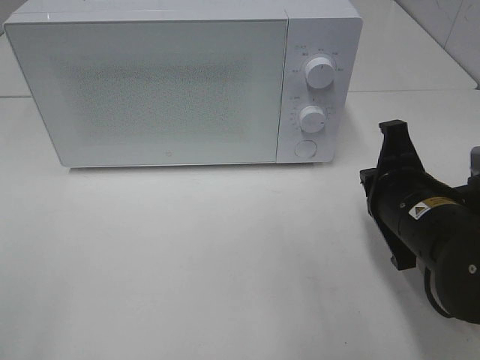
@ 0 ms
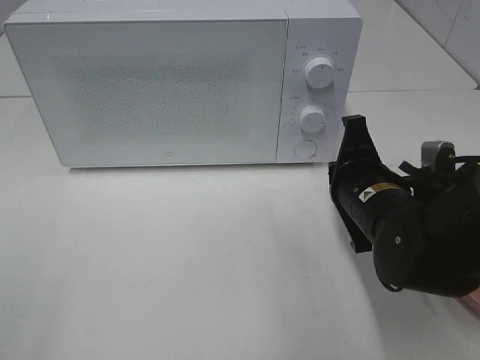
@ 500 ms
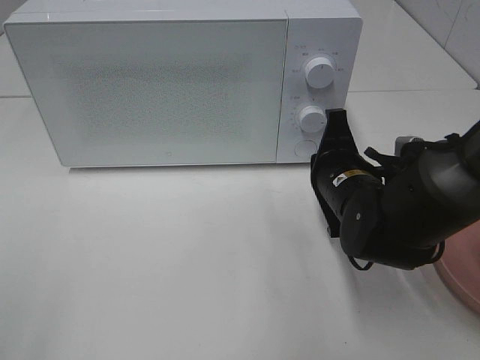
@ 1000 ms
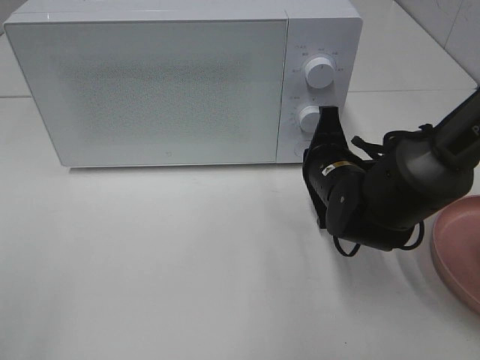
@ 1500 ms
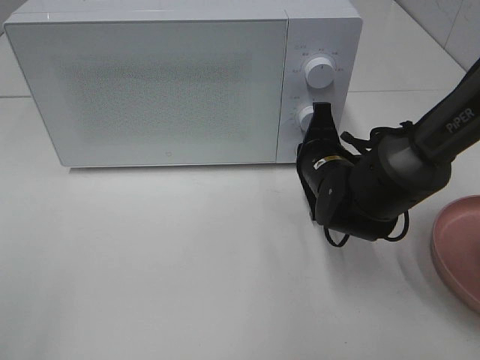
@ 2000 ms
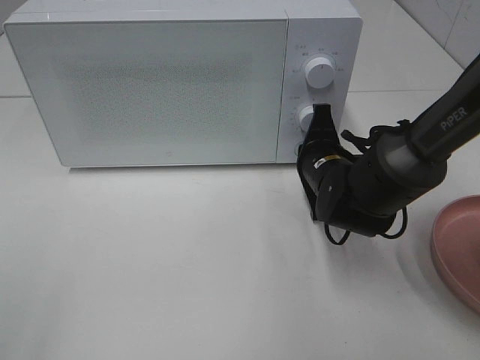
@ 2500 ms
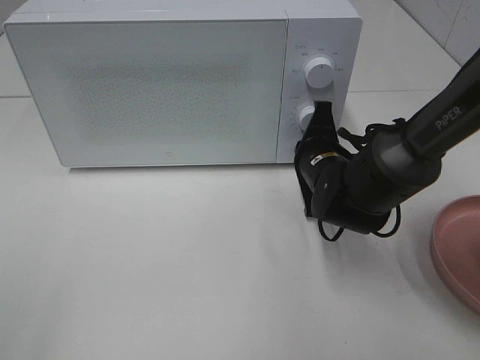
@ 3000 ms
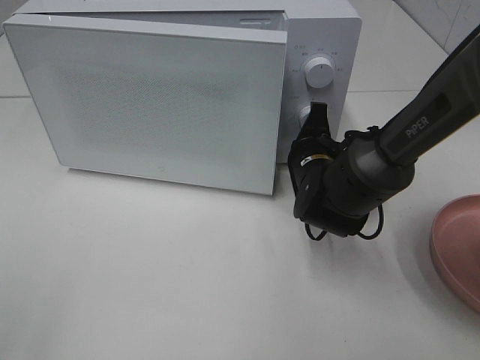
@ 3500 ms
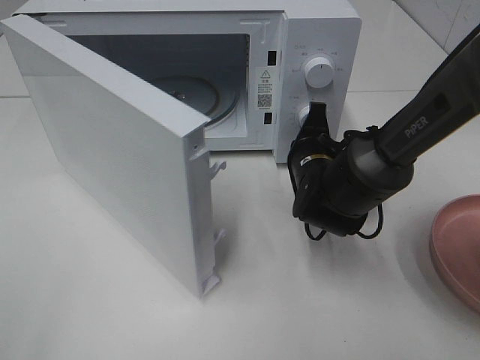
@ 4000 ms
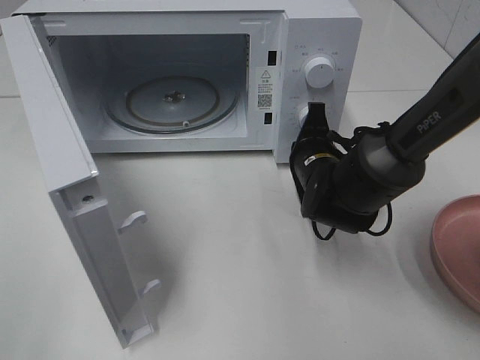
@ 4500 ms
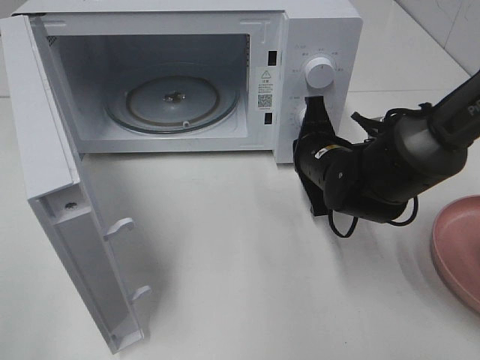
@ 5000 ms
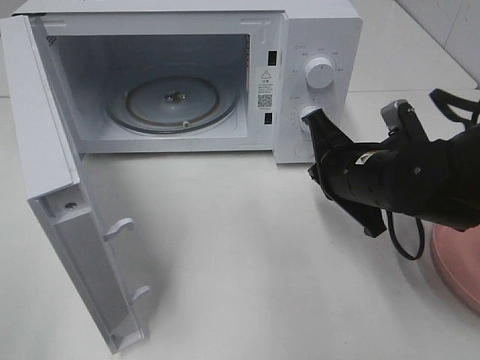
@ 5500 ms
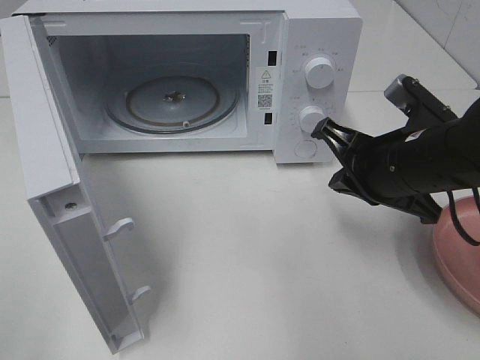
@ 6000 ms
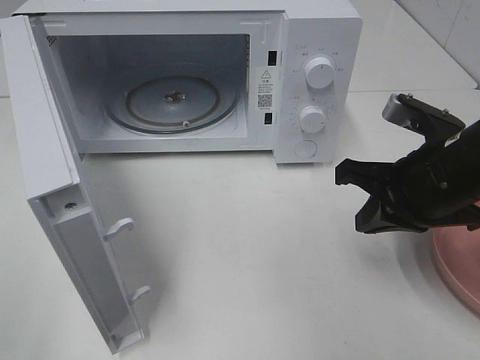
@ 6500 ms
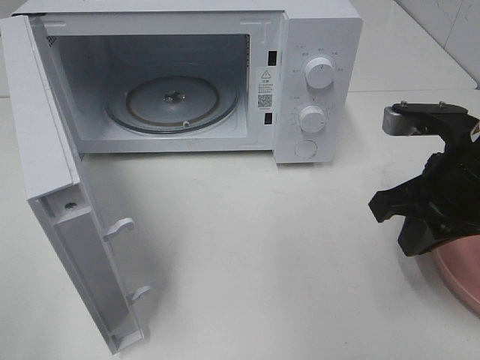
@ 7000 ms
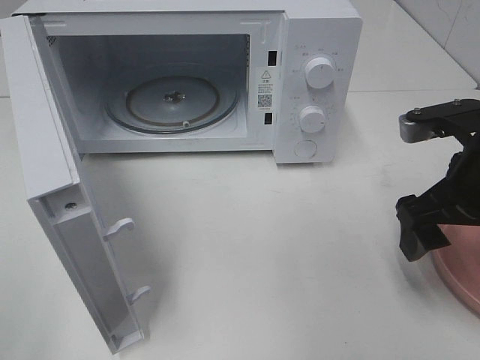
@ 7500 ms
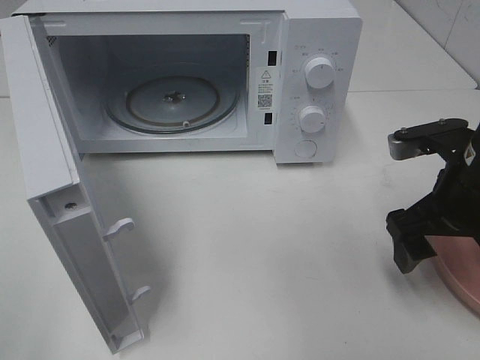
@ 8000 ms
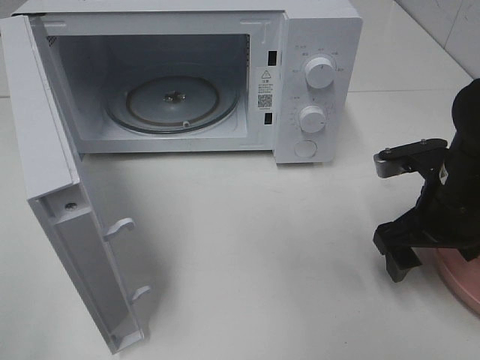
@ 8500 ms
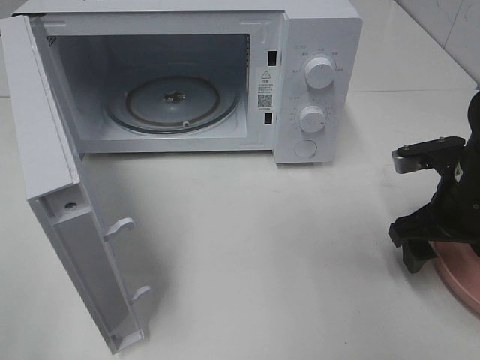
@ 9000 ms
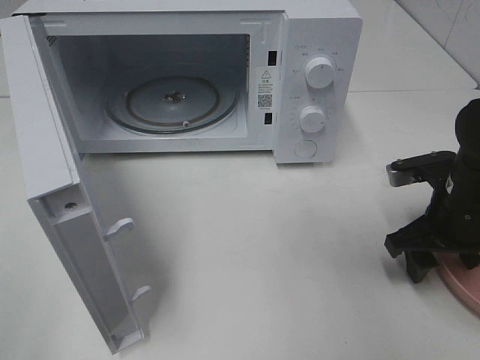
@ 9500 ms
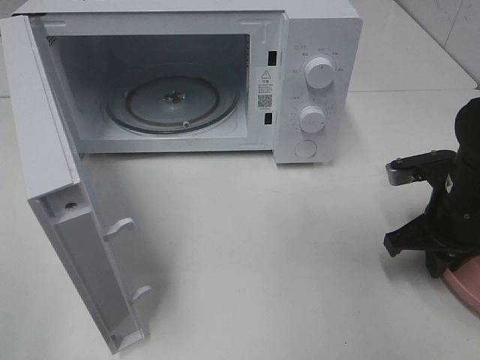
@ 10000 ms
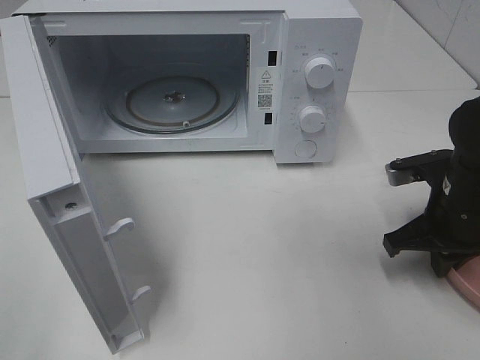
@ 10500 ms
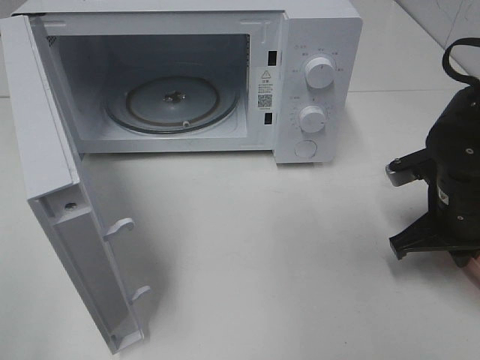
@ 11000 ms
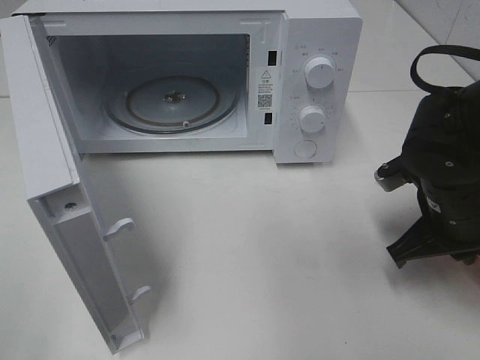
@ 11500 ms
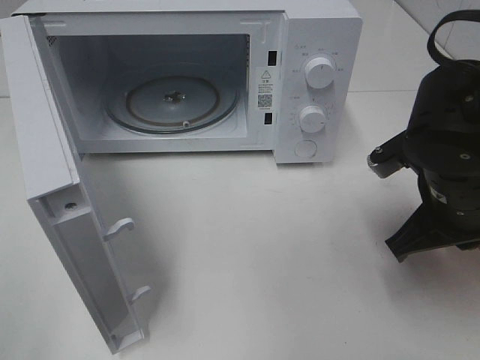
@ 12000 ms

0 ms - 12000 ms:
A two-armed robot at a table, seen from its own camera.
Task of the whole recording: Heat the burger.
Step, 0 ms - 5000 ms: Right hand: press the switch.
Step, 5500 ms - 10000 ms: Right hand: grab the plate with the hamburger.
0 ms - 2000 ms: The right gripper goes about 15 cm forward, to the left and downward.
4000 ms - 6000 ms: The right gripper is displaced upward, backward and to the right by roughly 15 cm.
6000 ms - 8000 ms: The right gripper opens.
8000 ms - 10000 ms: The right gripper is displaced downward by roughly 5 cm, and closes up.
10000 ms - 12000 ms: The right gripper moves to the left and upward, roughly 10 cm.

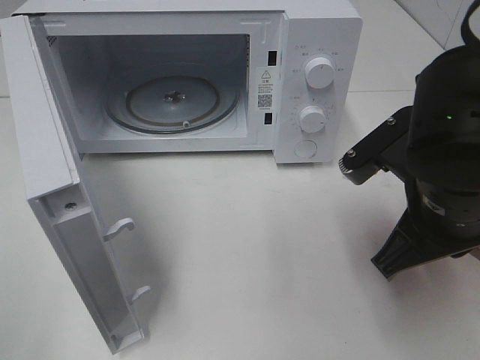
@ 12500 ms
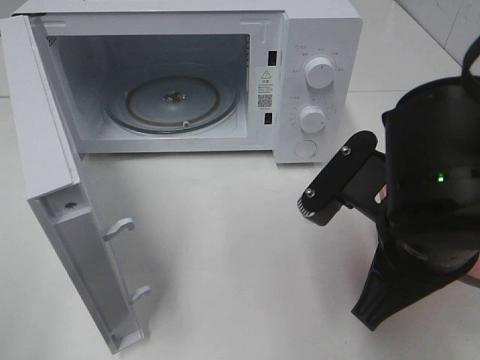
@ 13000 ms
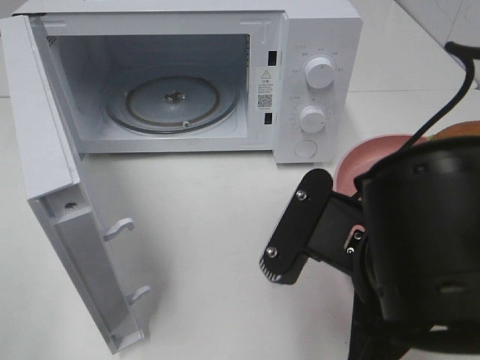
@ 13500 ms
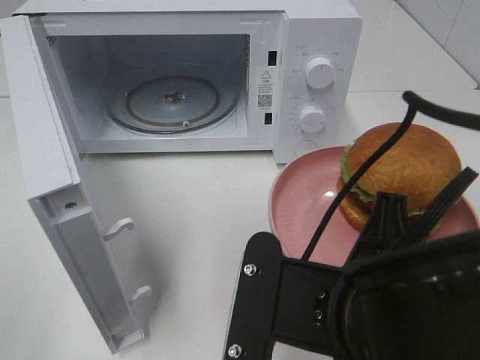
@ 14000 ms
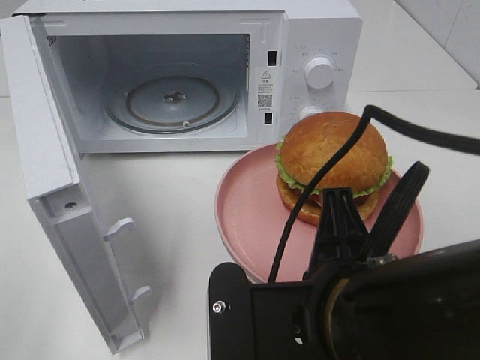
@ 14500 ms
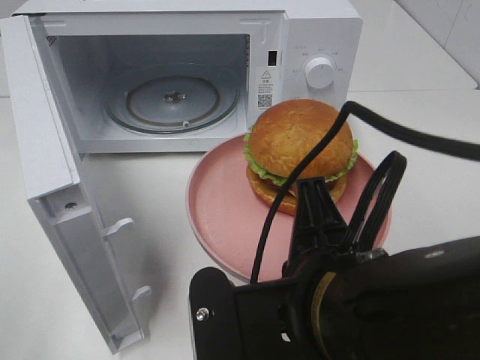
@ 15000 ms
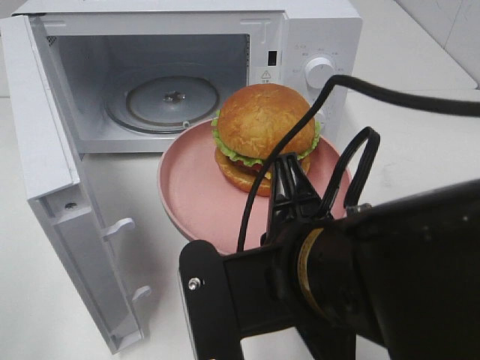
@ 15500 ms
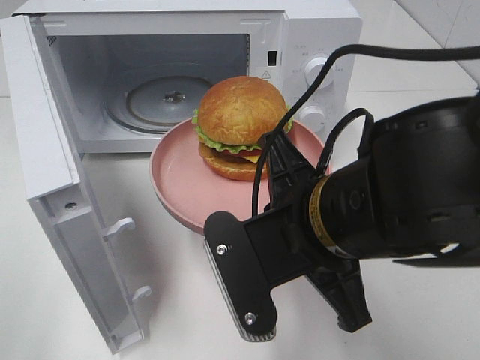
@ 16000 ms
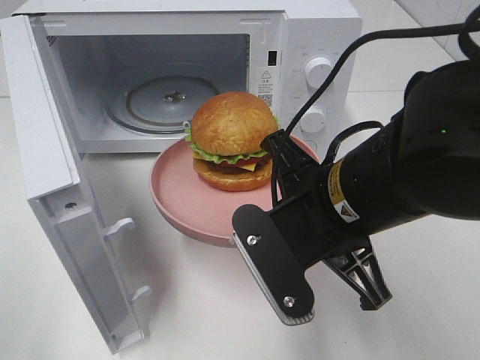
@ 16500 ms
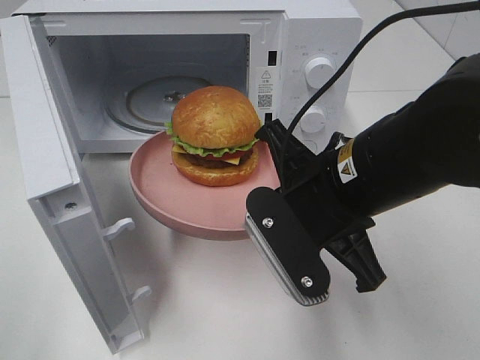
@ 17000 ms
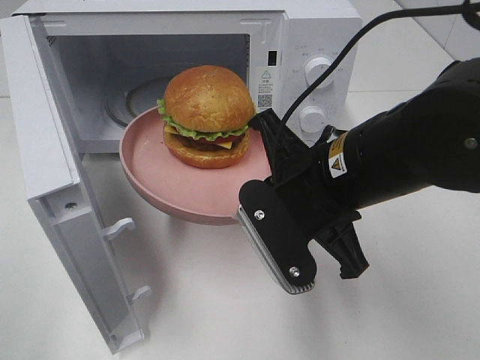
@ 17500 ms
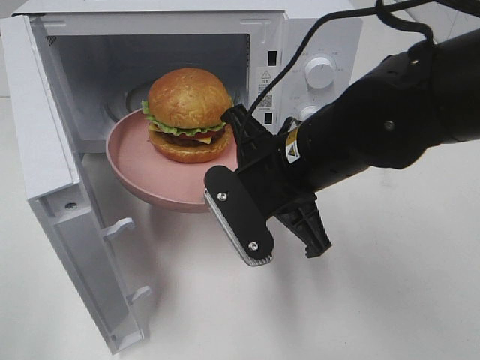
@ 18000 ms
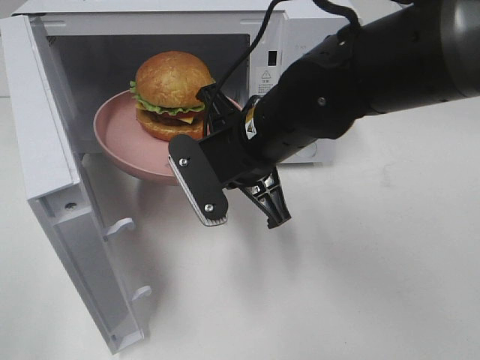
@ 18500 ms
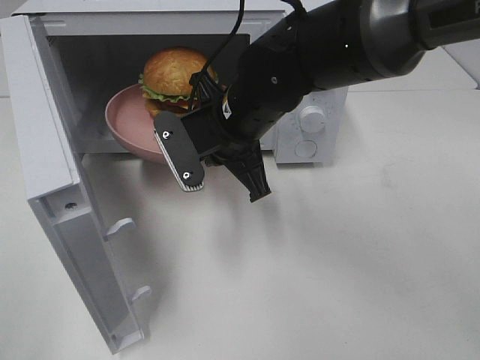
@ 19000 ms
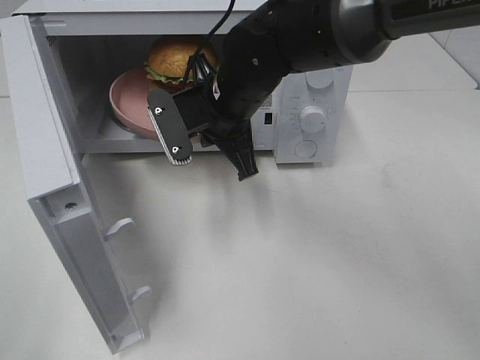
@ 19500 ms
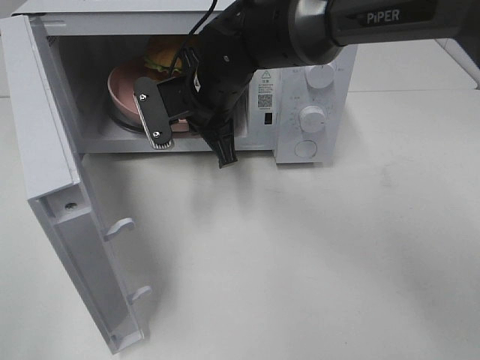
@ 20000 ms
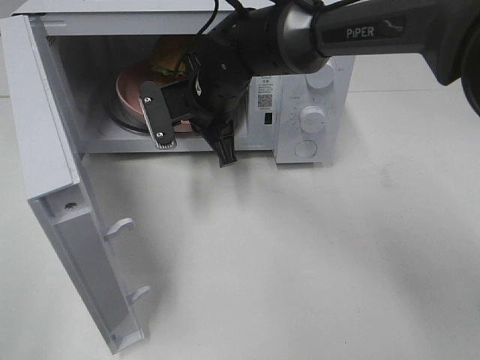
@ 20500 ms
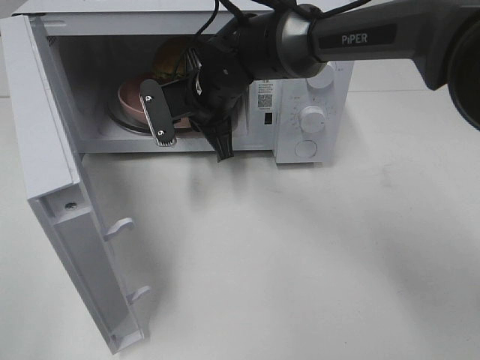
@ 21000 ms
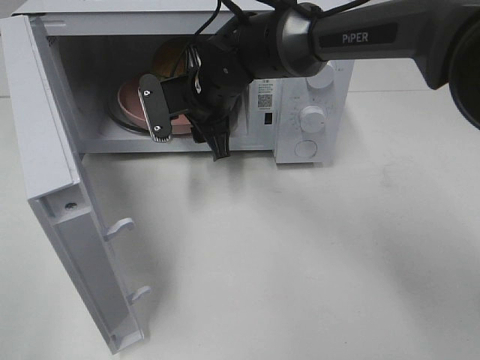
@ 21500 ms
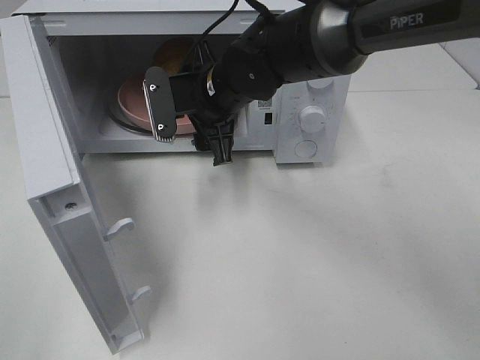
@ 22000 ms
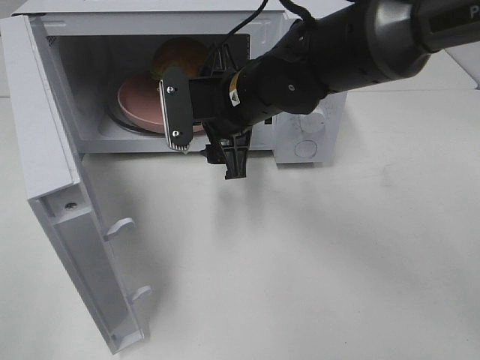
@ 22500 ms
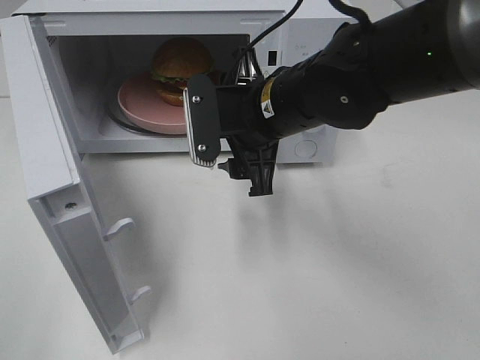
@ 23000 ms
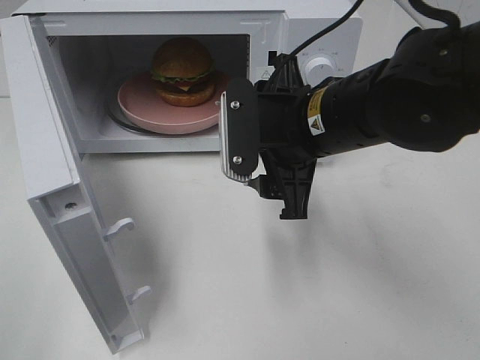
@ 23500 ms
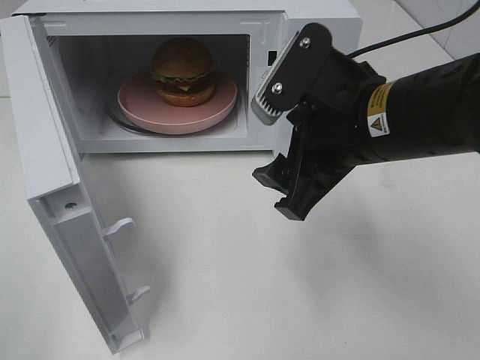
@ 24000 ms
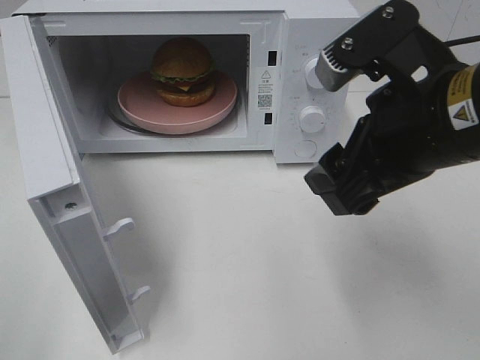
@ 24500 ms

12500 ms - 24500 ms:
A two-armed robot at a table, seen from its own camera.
Task of the whole recording: Heat the burger.
Step, 12500 ms - 21000 ms: Right hand: place the plate in the microwave.
12500 ms - 14500 ms: The right gripper goes approximately 15 cm backward and to the left.
14500 ms - 16500 ms: The right gripper shifts about 10 cm forward.
16500 ms - 18500 ms: The right gripper goes approximately 10 cm forward and to the left.
18500 ms - 20500 ms: The right gripper travels forward by approximately 10 cm.
20500 ms - 22500 ms: The right gripper shifts approximately 5 cm backward, and opens up.
22500 ms - 24500 ms: The right gripper shifts some 20 cm backward, to the right and upward.

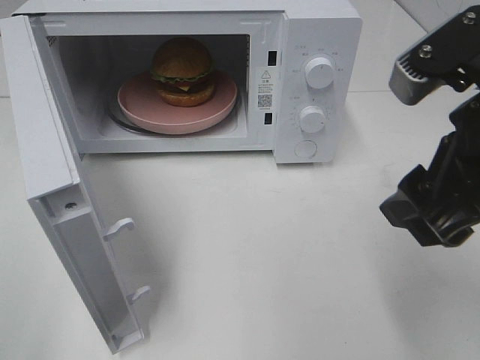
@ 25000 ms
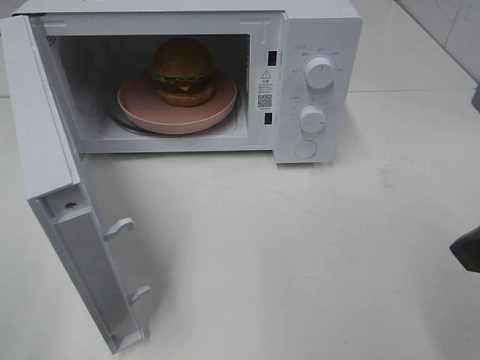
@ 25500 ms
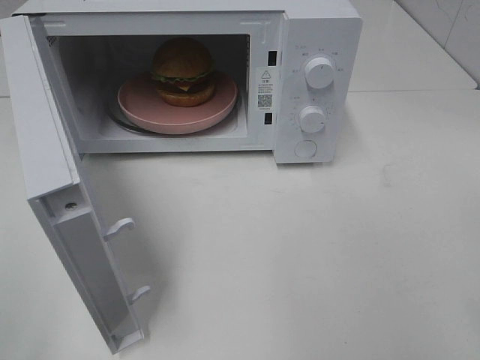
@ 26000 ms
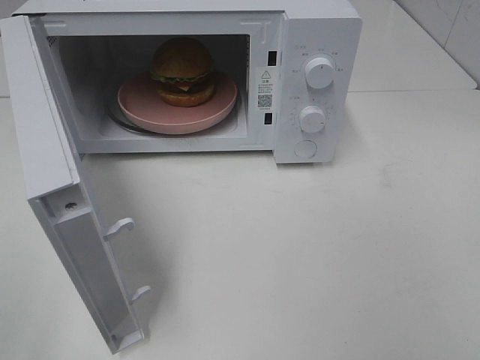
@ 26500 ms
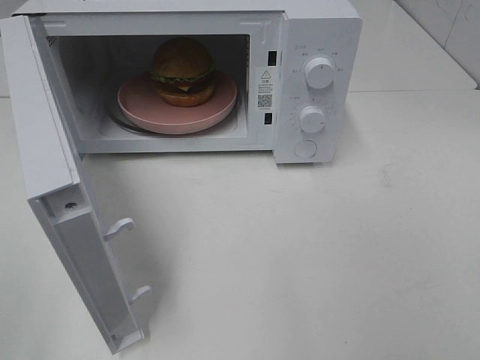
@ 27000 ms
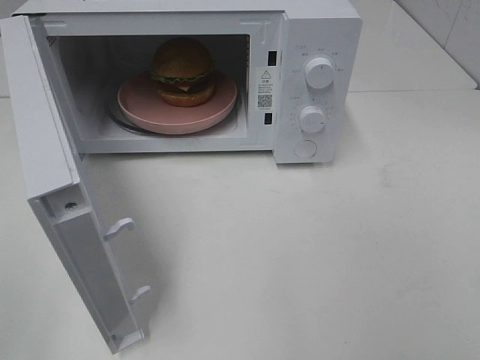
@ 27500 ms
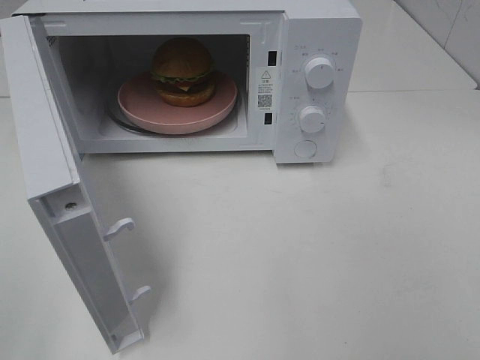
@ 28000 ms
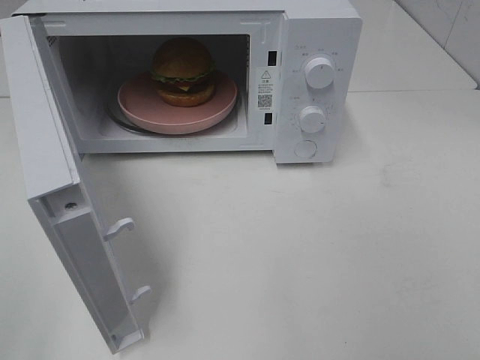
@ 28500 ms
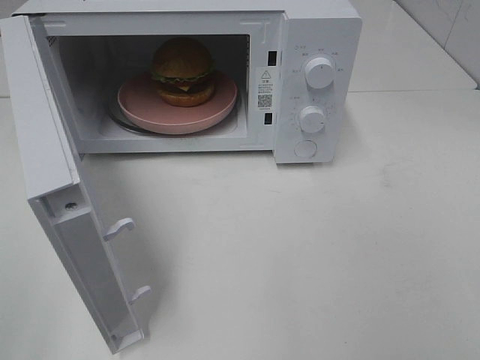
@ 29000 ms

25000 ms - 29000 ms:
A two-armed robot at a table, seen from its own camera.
Task of the whole recording: Heat the burger.
25000 ms - 27000 ms: The right gripper shifts some 20 cm backward and to the right.
27000 ms - 29000 ms: Both grippers stay put.
